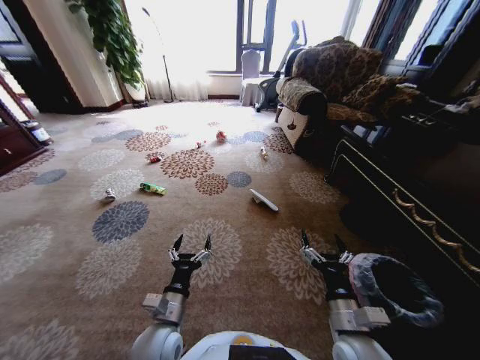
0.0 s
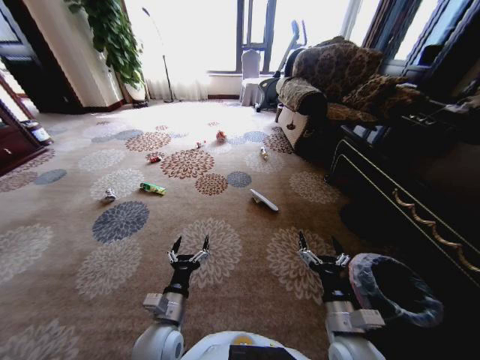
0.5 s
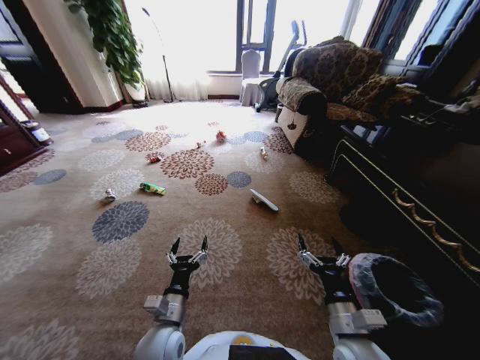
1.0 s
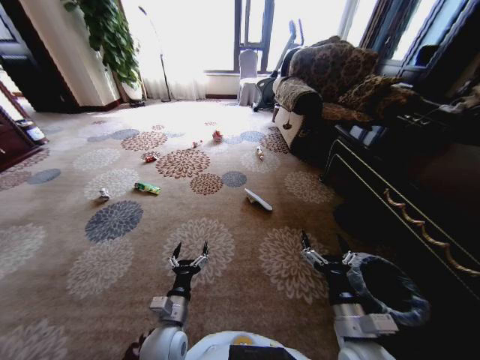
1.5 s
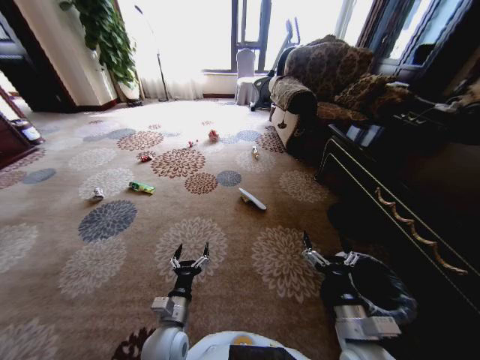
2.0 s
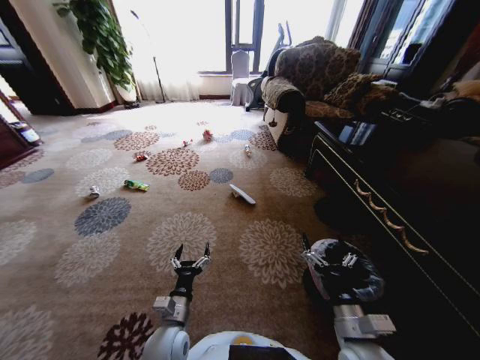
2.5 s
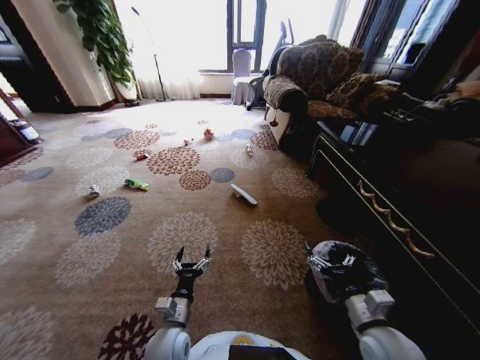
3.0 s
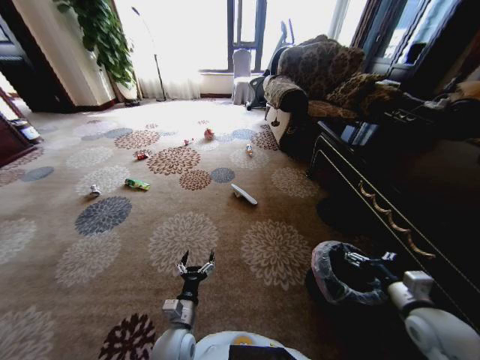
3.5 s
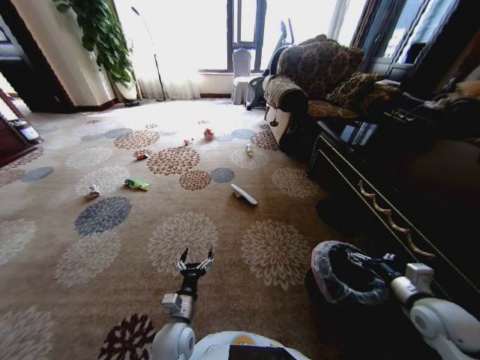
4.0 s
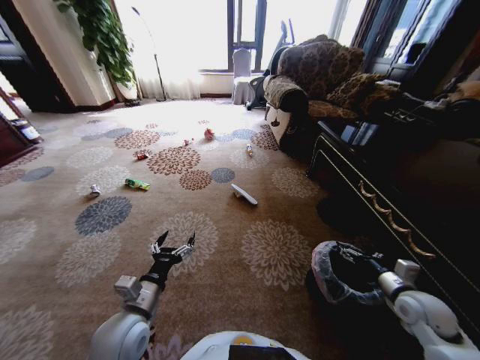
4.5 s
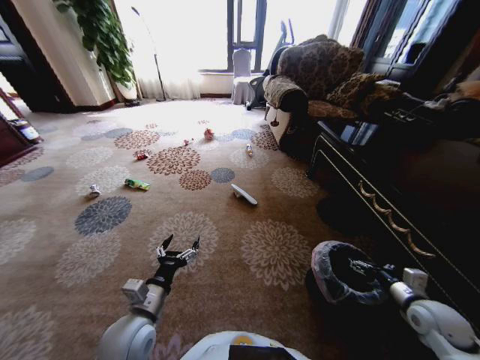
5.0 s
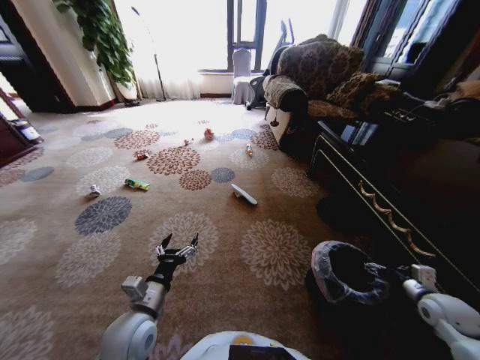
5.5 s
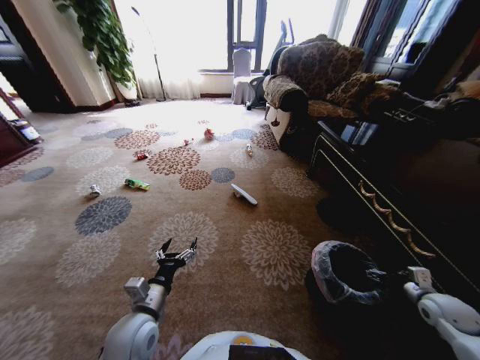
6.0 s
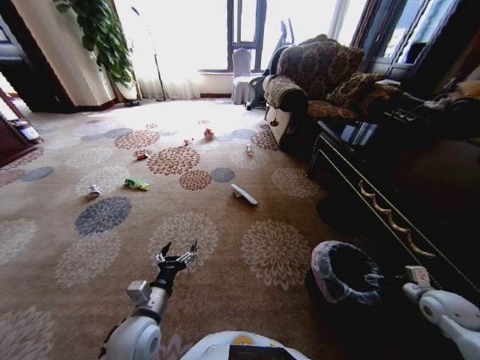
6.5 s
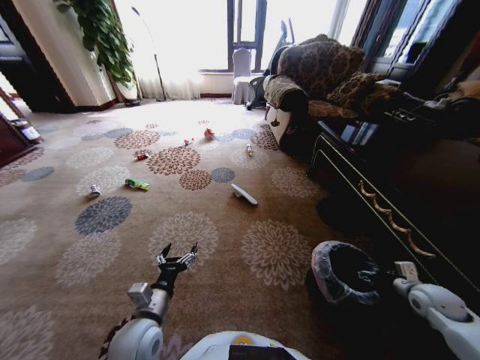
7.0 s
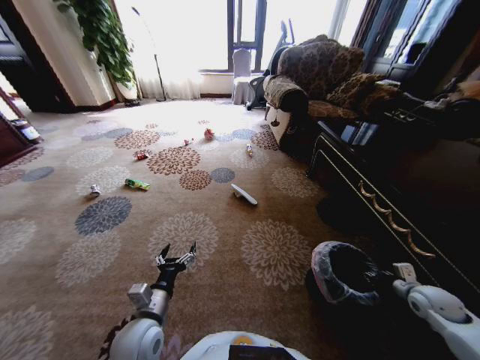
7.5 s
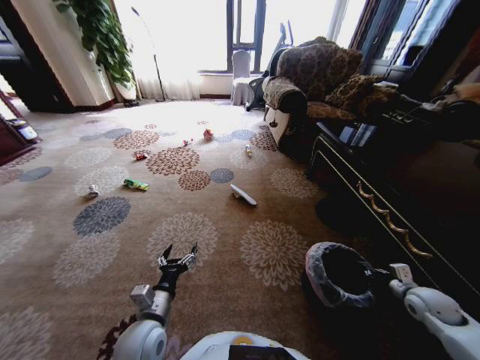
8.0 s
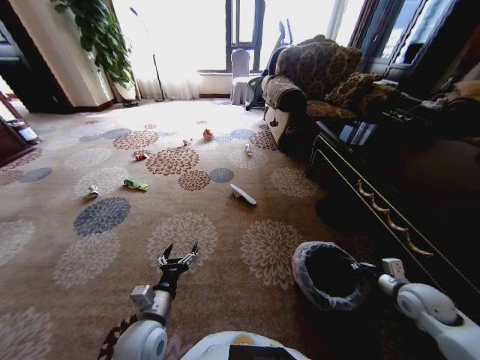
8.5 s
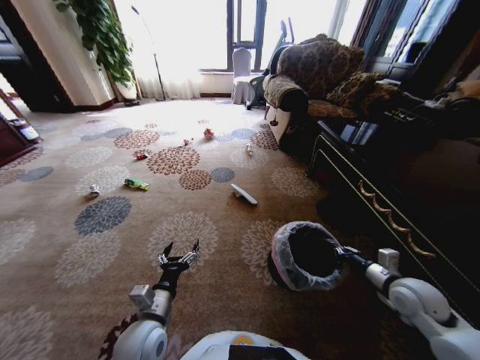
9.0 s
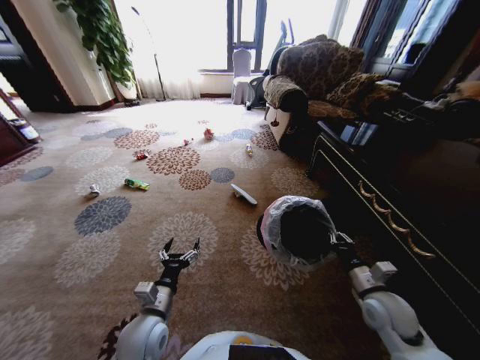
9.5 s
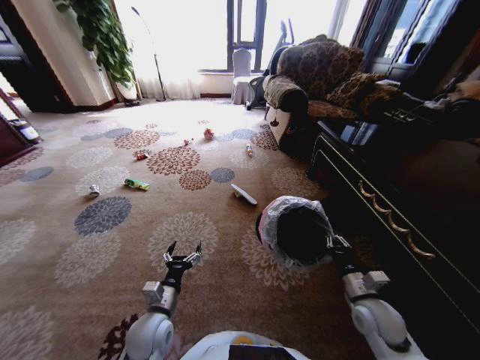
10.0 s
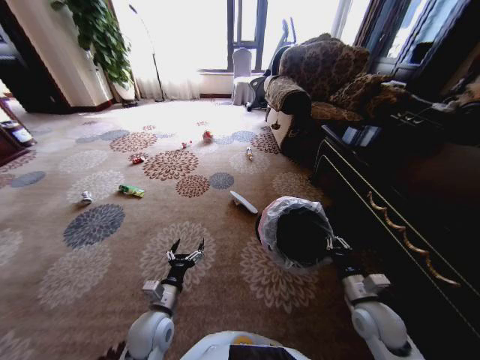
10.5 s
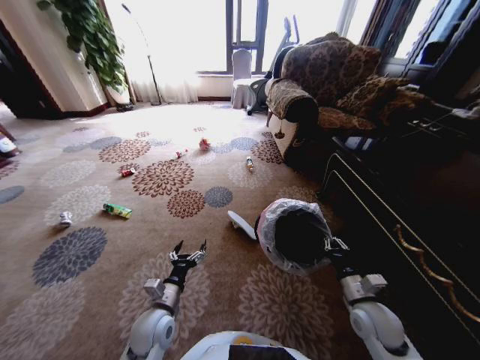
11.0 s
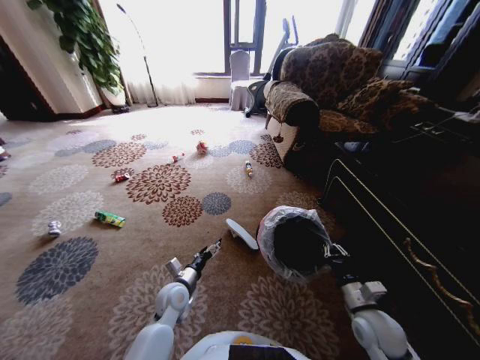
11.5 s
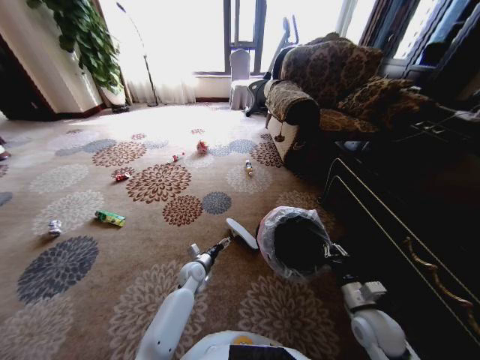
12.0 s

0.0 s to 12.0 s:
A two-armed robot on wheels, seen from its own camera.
Task of the whole recording: Pick up the trash from the ground and place it into the trash bin.
2.0 to 4.0 s: The right gripper is displaced to the right by some 20 cm.
4.0 to 6.0 s: The left gripper shifts roughly 10 cm upward and to the left. Meanwhile the right gripper shifts some 10 cm to the right and downward.
6.0 to 8.0 s: The right gripper closes.
8.0 to 10.0 s: The right gripper moves to the left, about 20 cm.
10.0 to 12.0 s: The left gripper is displaced forward and downward by some 20 cm.

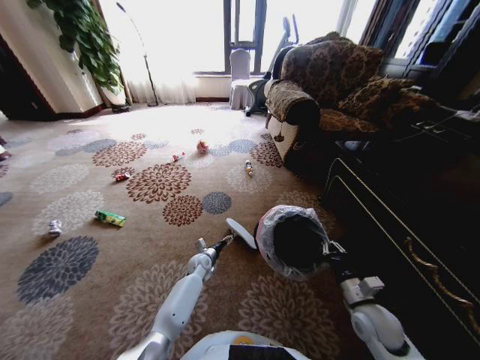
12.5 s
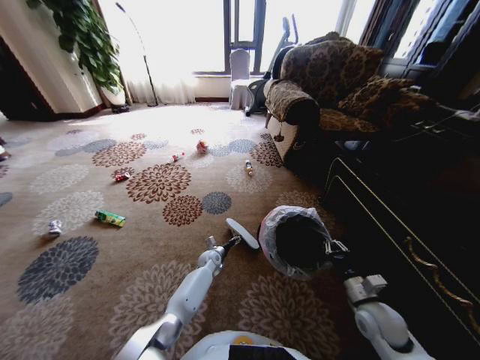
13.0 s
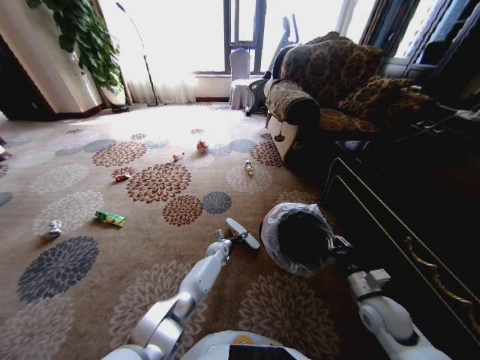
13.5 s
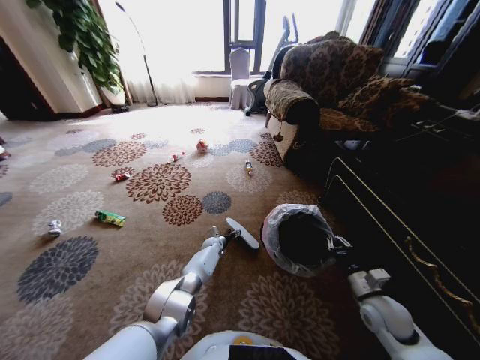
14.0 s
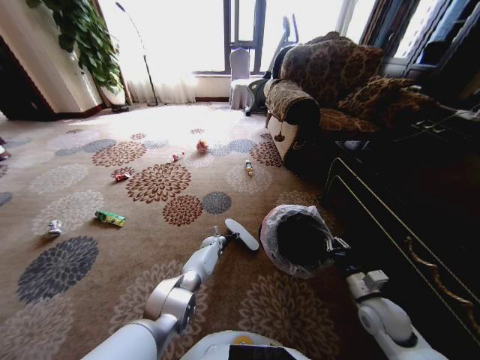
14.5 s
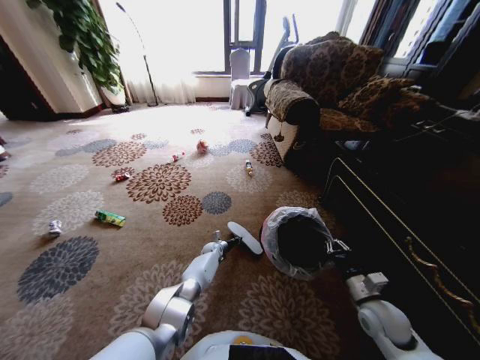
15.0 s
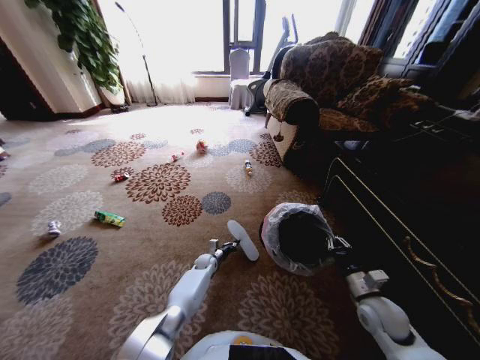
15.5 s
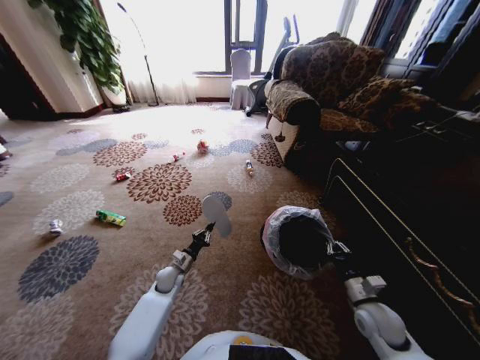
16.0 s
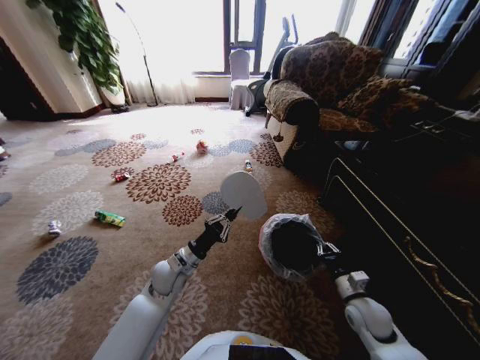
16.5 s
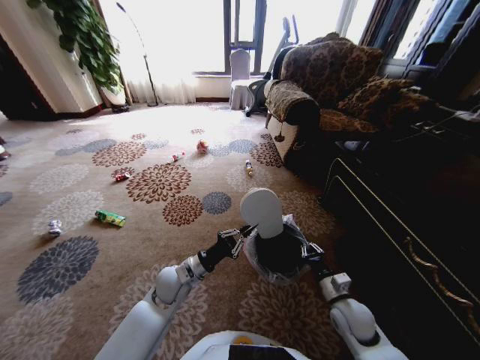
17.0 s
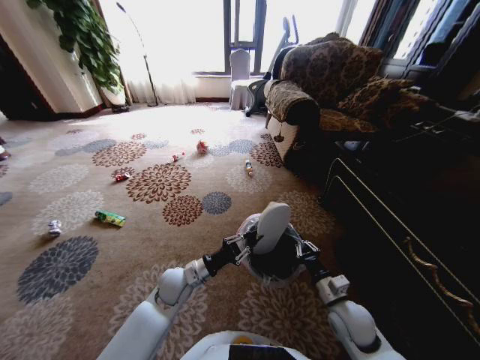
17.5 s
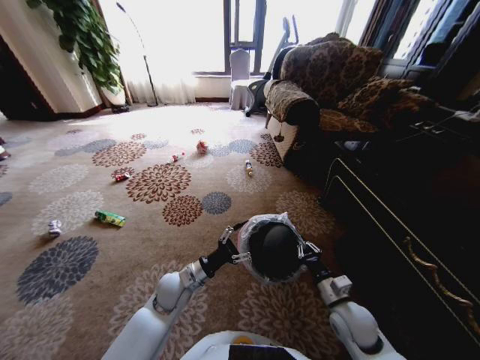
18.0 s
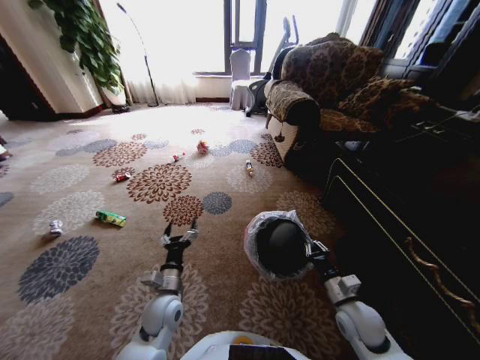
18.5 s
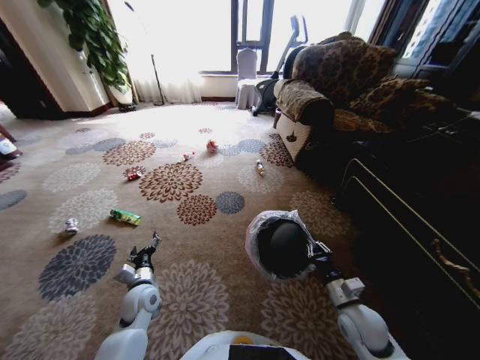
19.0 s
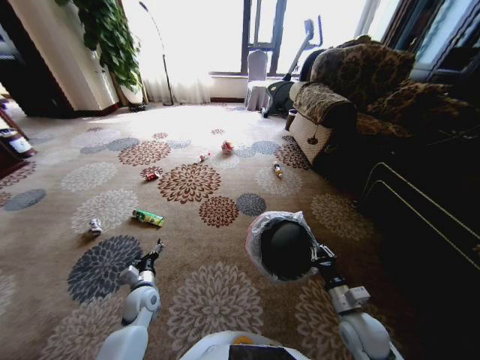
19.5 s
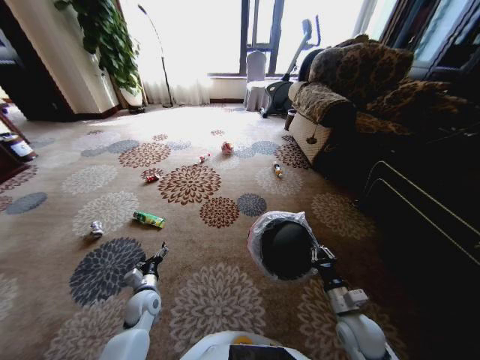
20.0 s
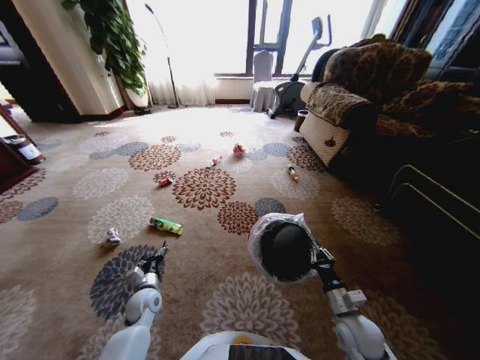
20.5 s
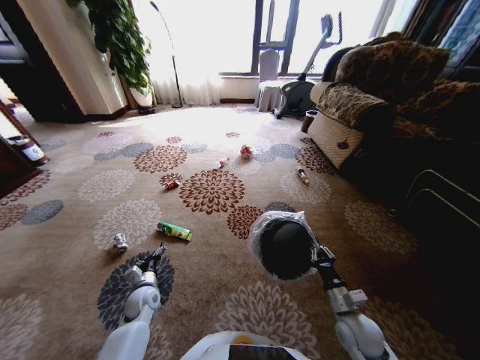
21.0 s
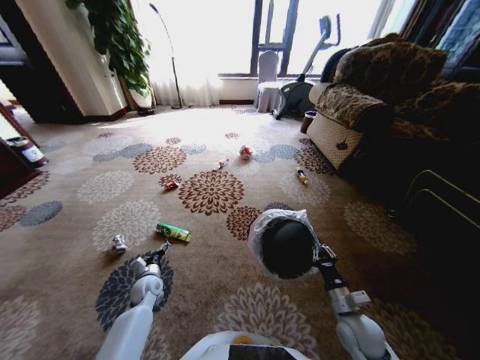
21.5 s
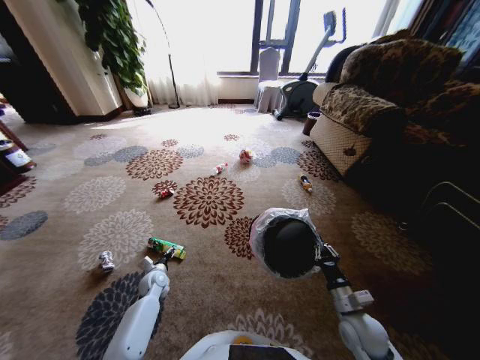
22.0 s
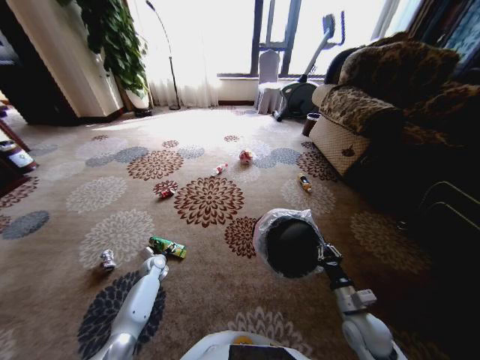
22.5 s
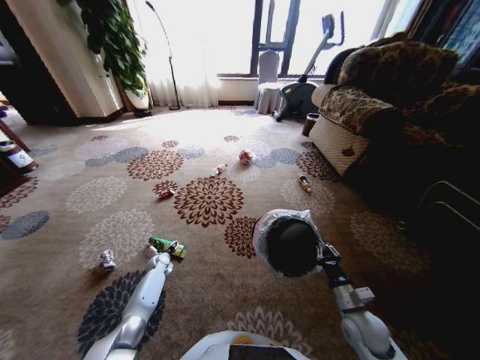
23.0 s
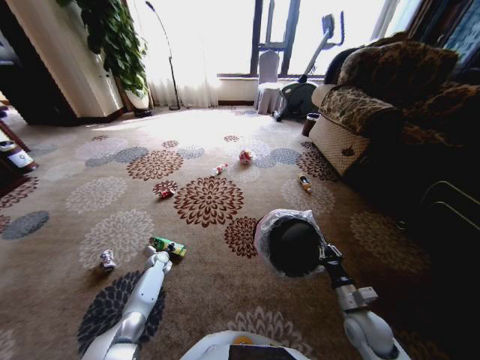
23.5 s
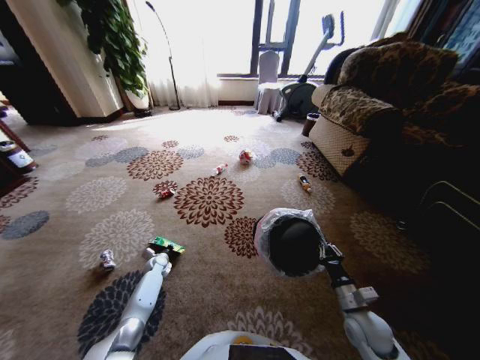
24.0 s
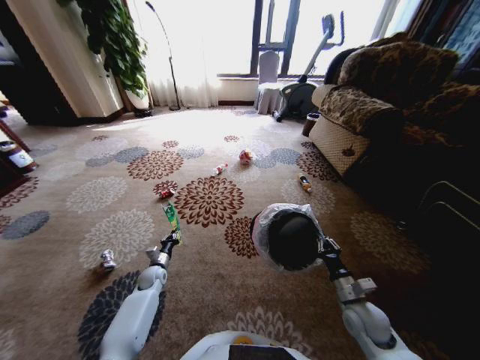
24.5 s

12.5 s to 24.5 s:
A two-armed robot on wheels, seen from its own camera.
Task of the whole recording: Pick up the trash from the ground and place it into the trash bin.
12.5 to 14.5 s: The left gripper heads forward, covering some 10 cm, and closes its fingers.
14.5 to 16.5 s: The left gripper heads backward and upward, covering approximately 30 cm, and closes up.
16.5 to 18.5 s: The left gripper goes about 10 cm backward, and opens its fingers, while the right gripper shifts by roughly 5 cm.
18.5 to 20.5 s: The left gripper moves to the left and downward, about 10 cm.
20.5 to 22.5 s: The left gripper goes roughly 15 cm forward, downward and to the left.
22.5 to 24.5 s: The left gripper closes up.

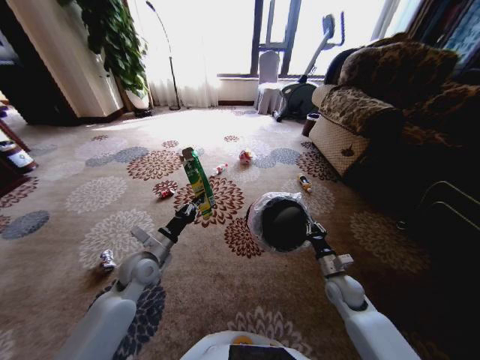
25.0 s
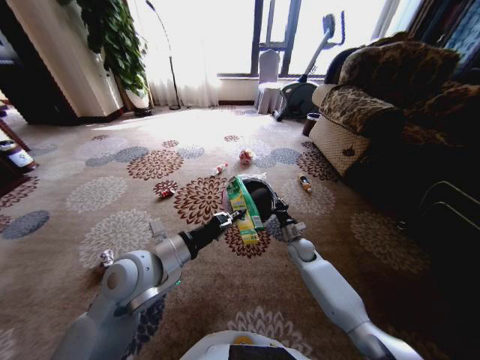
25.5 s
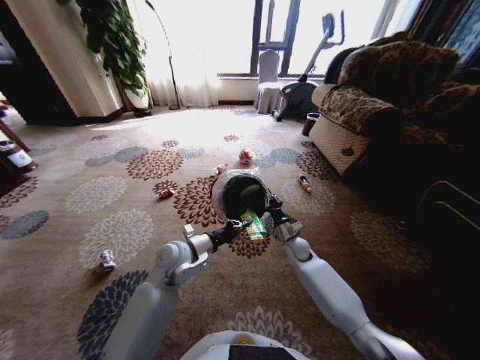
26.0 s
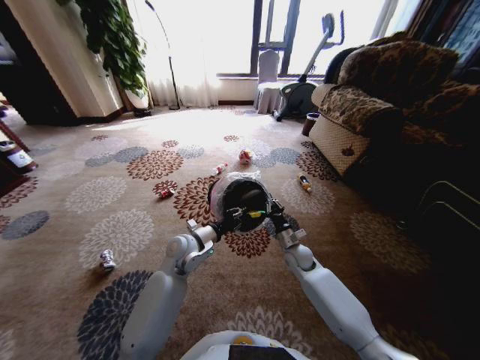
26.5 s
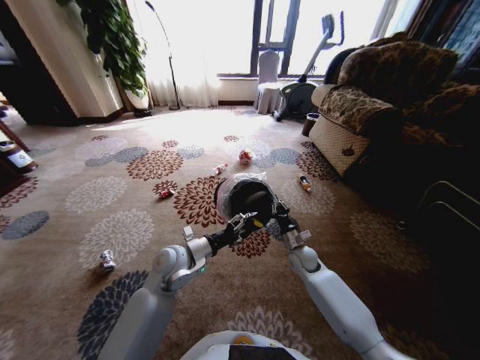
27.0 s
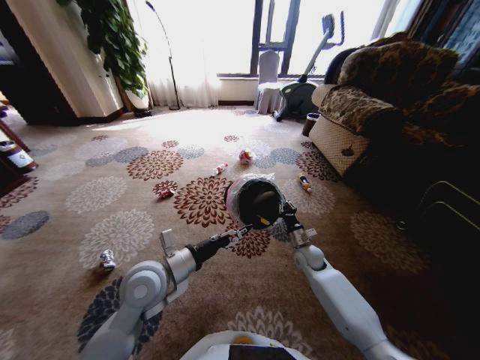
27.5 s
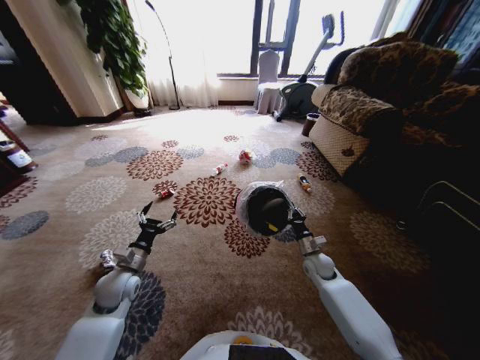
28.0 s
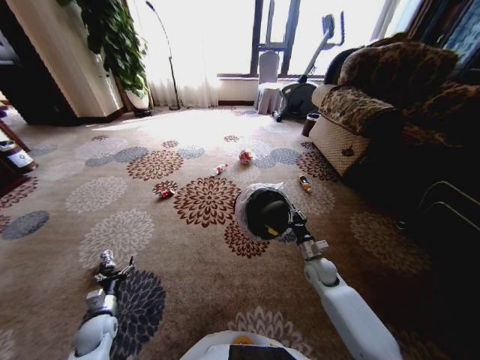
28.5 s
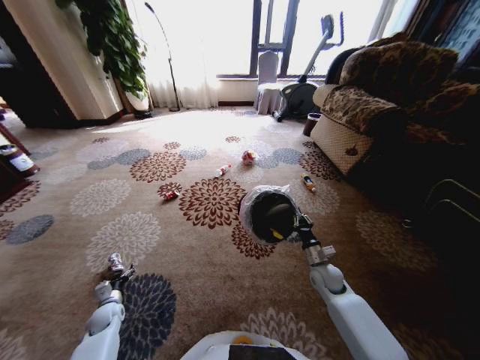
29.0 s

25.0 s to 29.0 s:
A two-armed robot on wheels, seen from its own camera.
Task of the whole recording: Pick up the trash from the ground and place it into the trash bin.
25.0 to 27.0 s: The left gripper goes about 10 cm to the right, travels upward and back again, approximately 10 cm each way, and opens. The right gripper heads forward and to the left, covering roughly 15 cm.
27.0 to 29.0 s: The left gripper goes roughly 40 cm to the left and downward. Meanwhile the right gripper goes approximately 10 cm to the right and backward.
